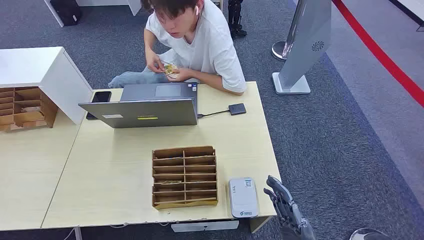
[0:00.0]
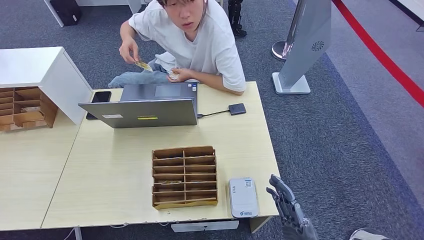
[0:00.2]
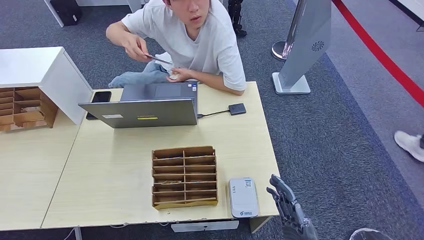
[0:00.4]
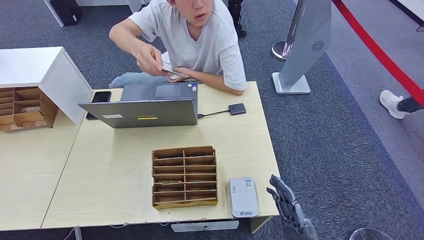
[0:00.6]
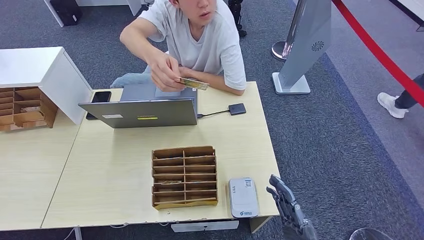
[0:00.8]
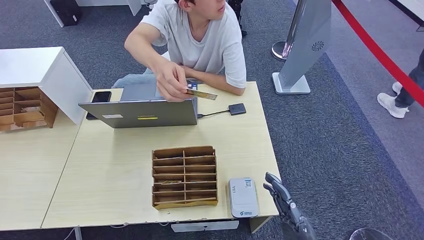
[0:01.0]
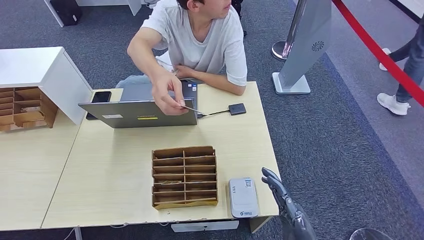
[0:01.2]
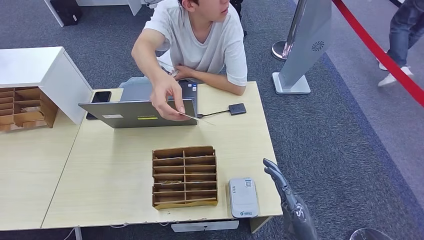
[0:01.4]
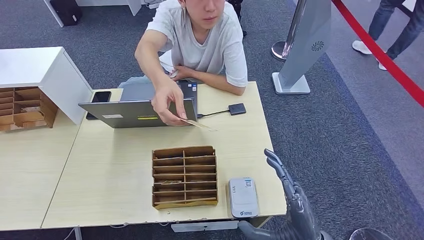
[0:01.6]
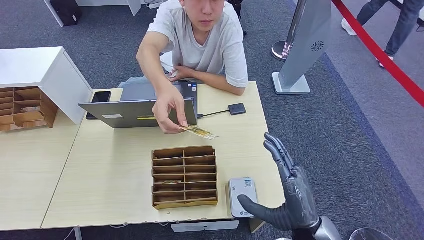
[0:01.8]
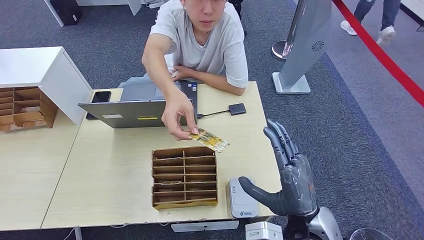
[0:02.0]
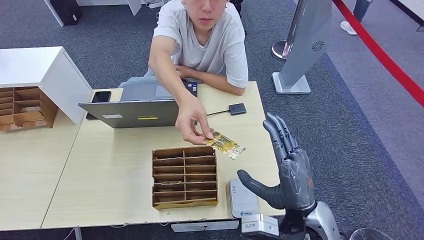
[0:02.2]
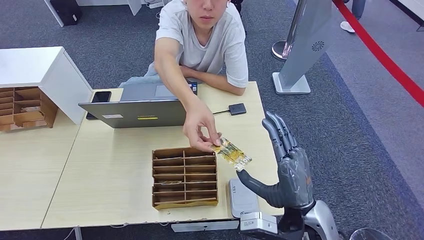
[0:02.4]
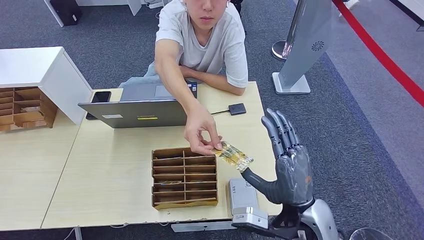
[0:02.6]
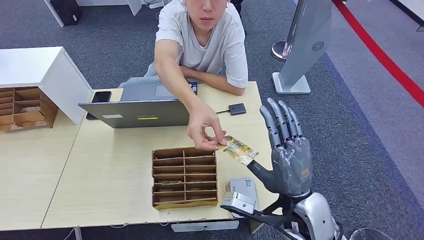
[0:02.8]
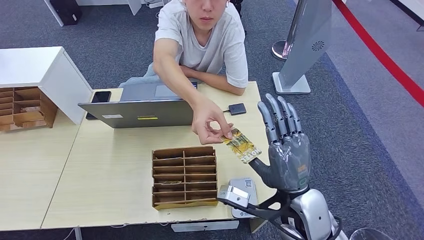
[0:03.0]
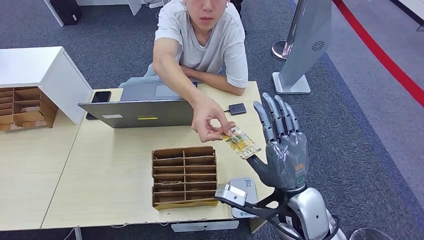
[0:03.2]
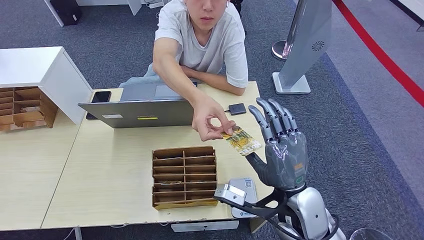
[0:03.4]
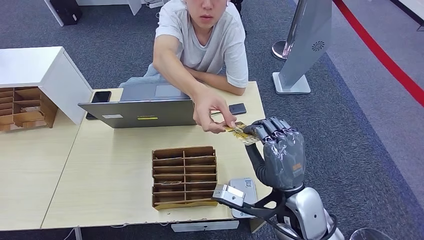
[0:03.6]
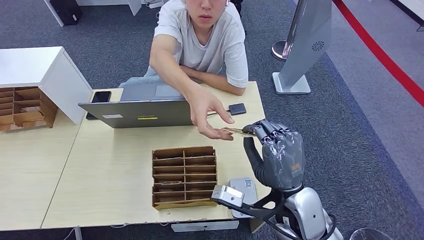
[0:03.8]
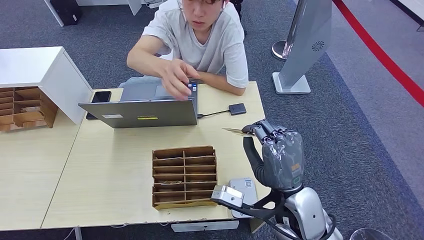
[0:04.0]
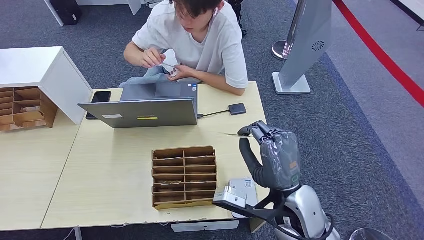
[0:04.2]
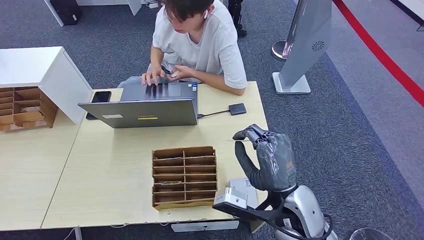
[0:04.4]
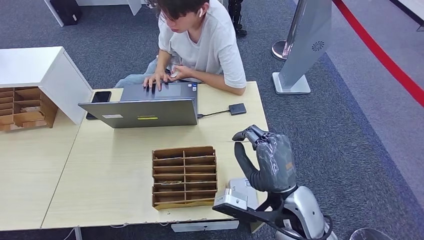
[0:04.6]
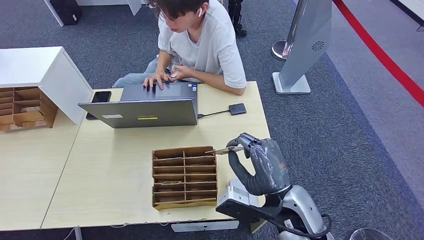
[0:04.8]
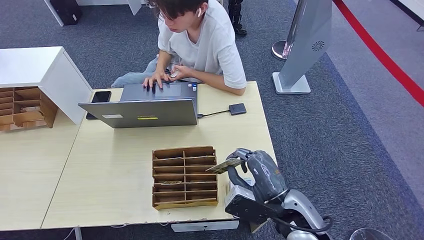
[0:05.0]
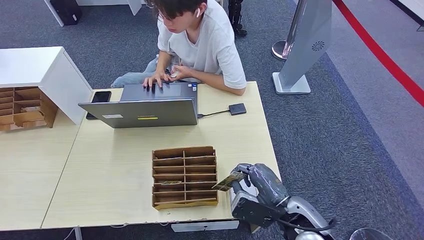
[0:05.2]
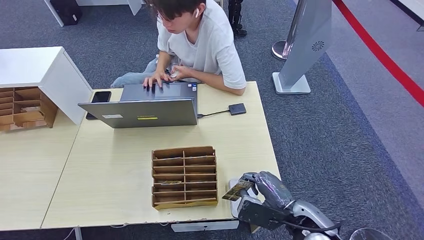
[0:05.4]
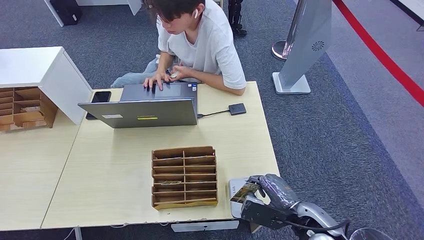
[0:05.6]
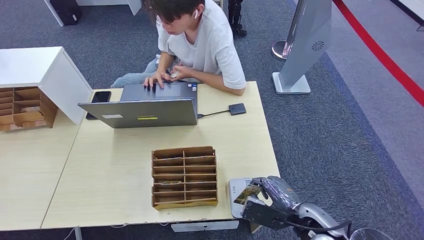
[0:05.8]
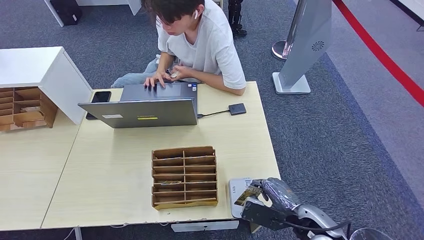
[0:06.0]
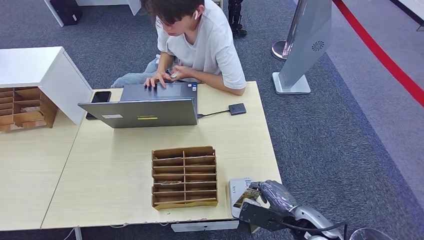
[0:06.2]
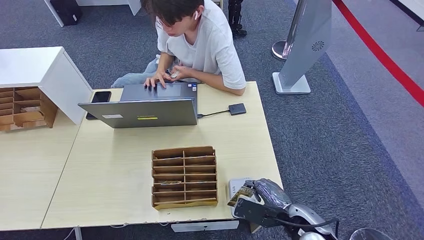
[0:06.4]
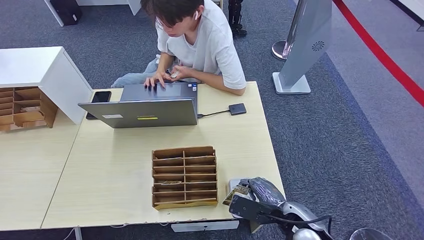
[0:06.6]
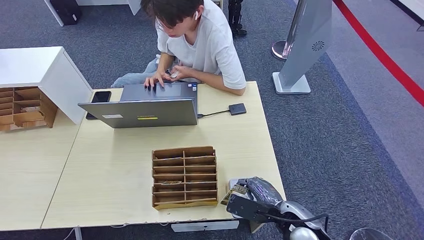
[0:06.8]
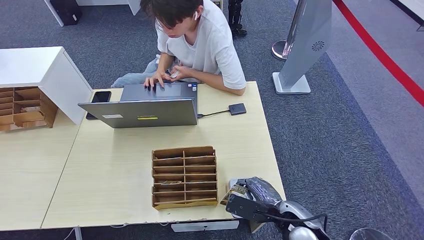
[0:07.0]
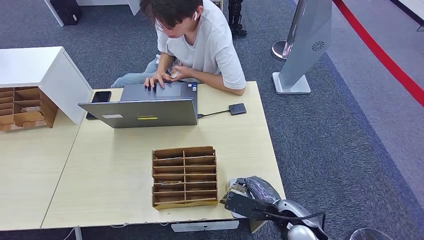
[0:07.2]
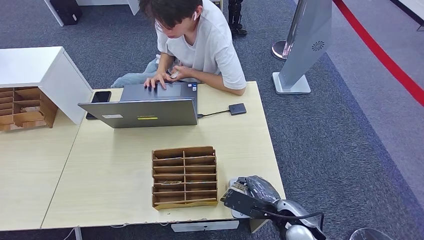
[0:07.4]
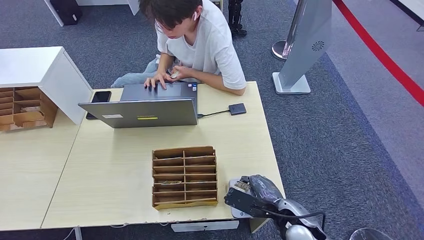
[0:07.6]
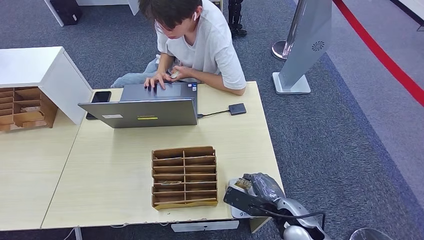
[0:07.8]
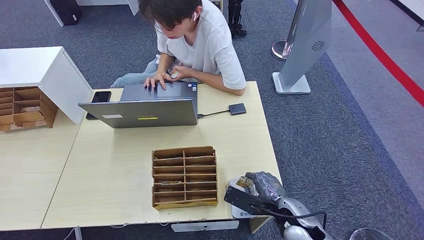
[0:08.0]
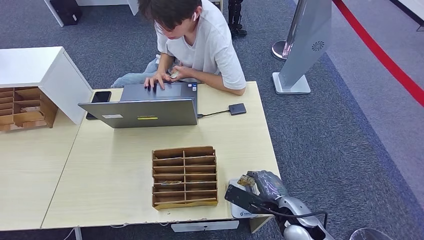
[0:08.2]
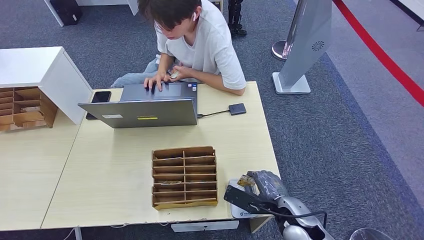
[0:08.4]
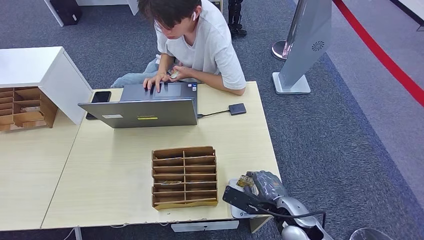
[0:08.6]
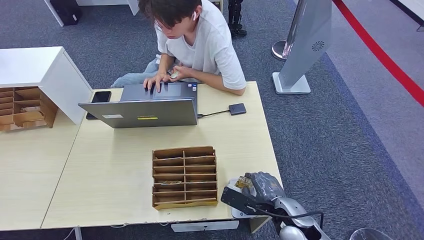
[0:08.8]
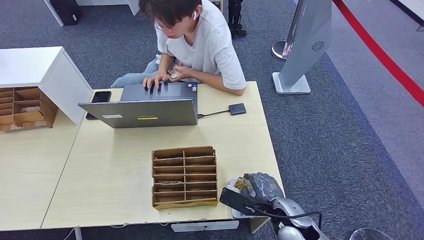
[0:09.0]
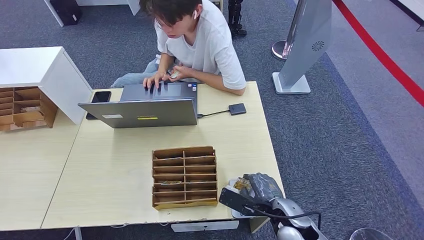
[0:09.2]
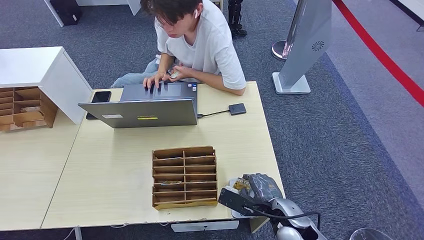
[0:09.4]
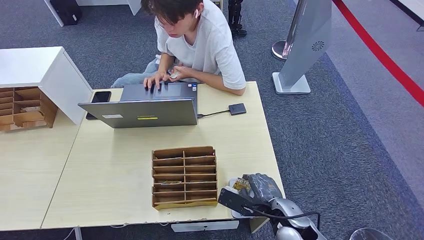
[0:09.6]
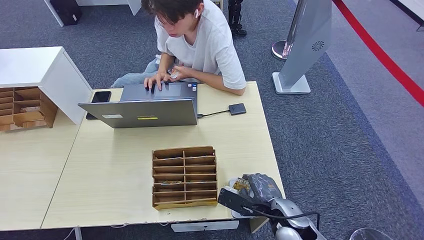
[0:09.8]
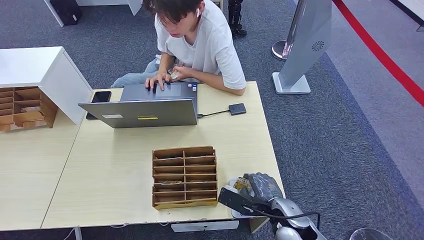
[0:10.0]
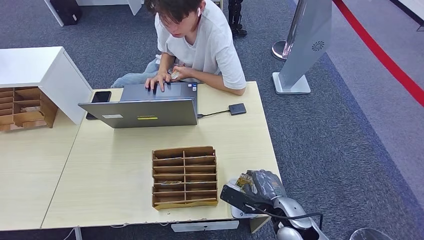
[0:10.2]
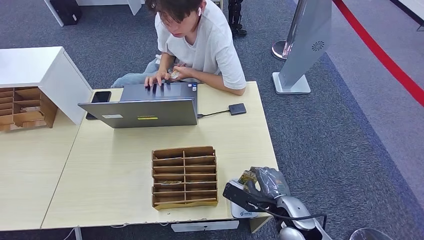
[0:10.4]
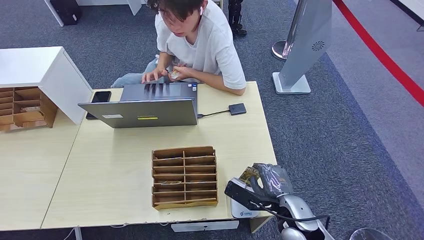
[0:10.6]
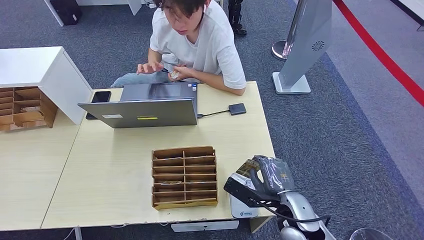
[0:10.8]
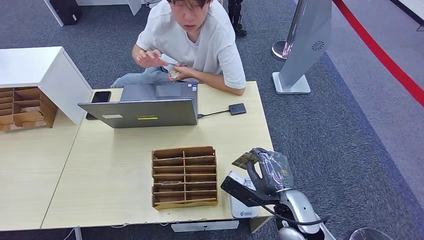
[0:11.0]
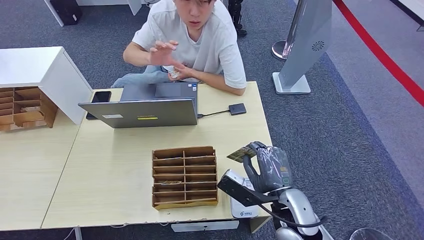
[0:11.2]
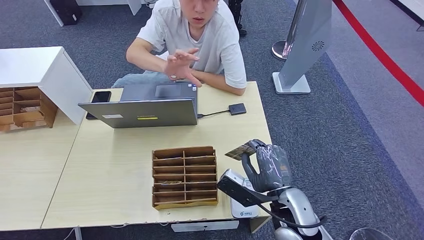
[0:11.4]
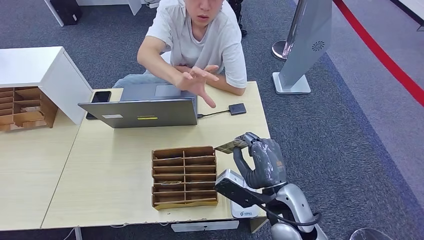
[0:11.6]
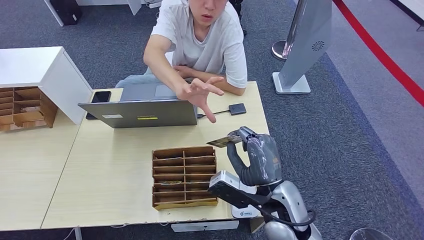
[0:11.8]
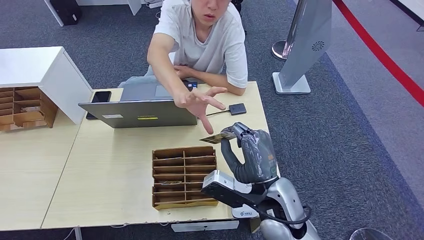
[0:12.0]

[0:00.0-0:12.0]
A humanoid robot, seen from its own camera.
Step, 0:00.0 to 0:05.6: Take the ID card from the person's hand.
Step, 0:05.8 to 0:09.0: Place the ID card on the card reader.
0:01.6 to 0:03.0: The right hand is displaced forward by approximately 10 cm.
0:03.0 to 0:04.4: The hands stay close to where they were, moving slightly.
0:04.4 to 0:06.0: The right hand is displaced downward and to the right by roughly 15 cm.
0:06.0 to 0:09.0: The hands stay close to where they were, moving slightly.
0:09.0 to 0:10.4: The hands move only a little.
0:10.4 to 0:12.0: The right hand goes approximately 15 cm upward and to the left.

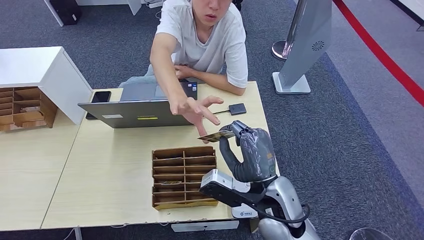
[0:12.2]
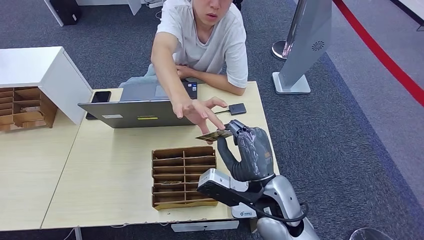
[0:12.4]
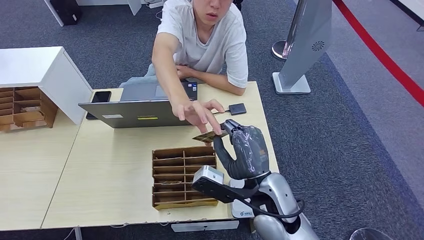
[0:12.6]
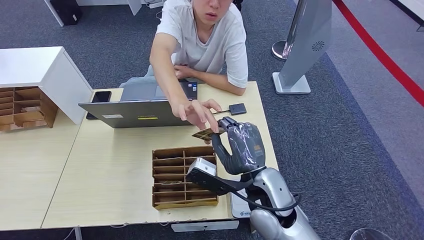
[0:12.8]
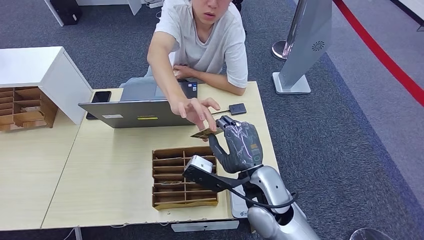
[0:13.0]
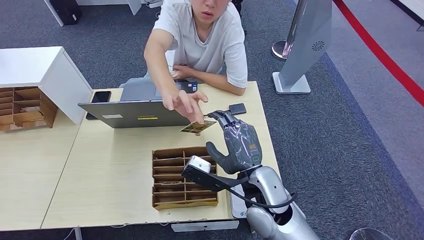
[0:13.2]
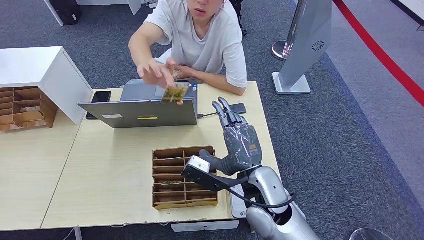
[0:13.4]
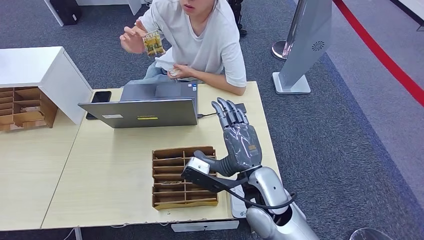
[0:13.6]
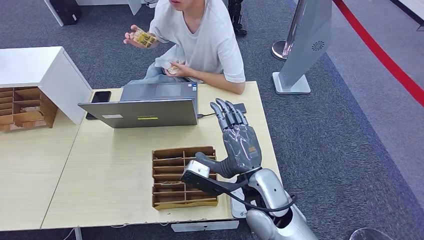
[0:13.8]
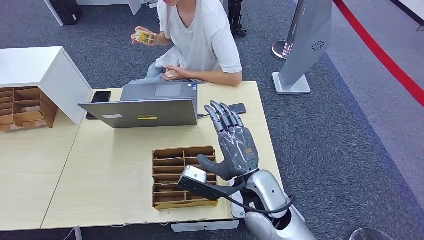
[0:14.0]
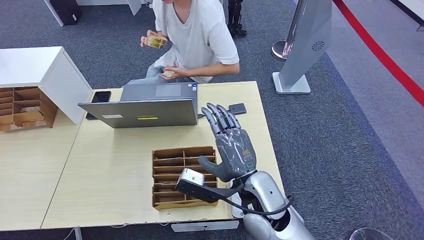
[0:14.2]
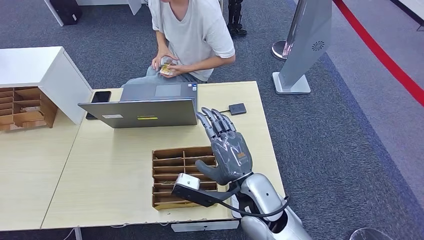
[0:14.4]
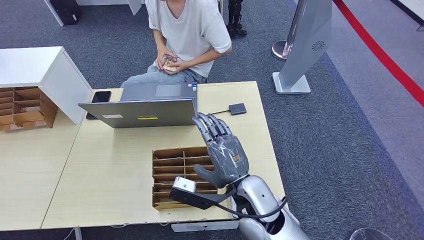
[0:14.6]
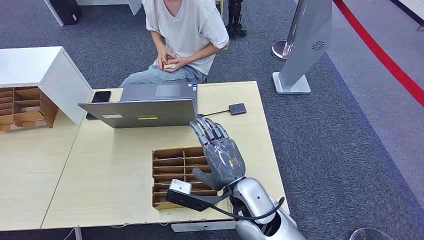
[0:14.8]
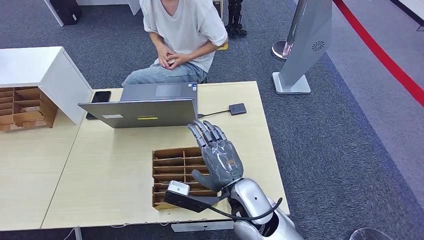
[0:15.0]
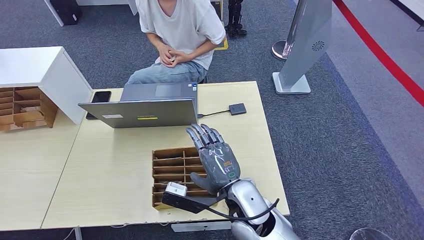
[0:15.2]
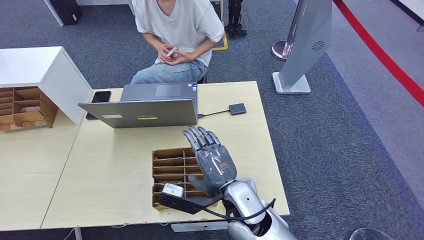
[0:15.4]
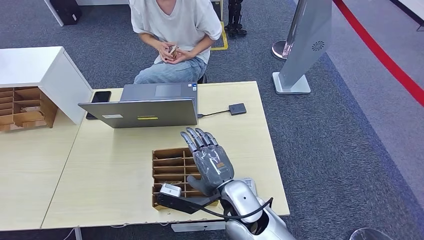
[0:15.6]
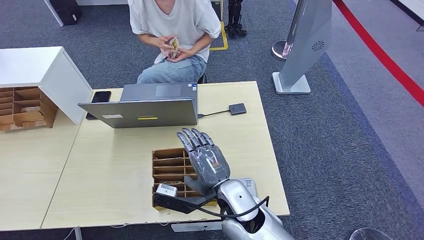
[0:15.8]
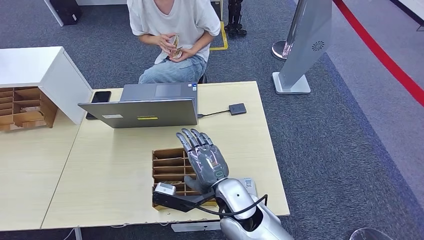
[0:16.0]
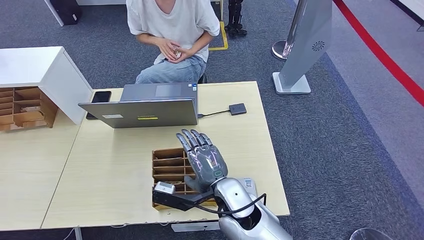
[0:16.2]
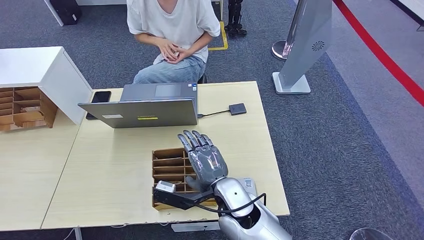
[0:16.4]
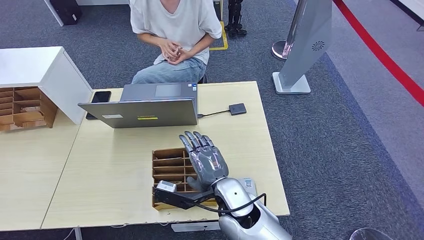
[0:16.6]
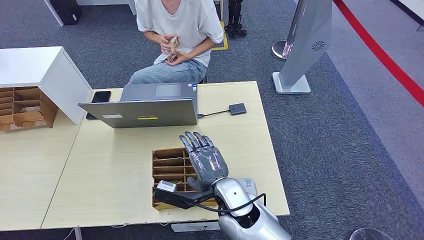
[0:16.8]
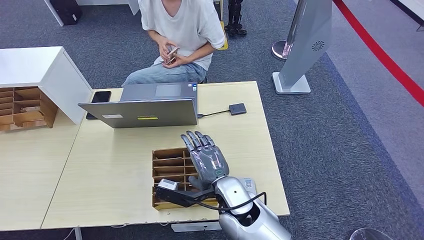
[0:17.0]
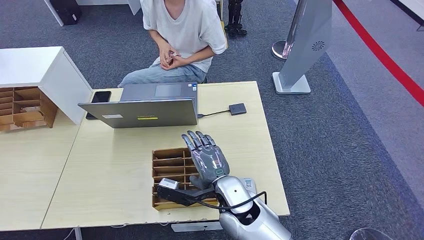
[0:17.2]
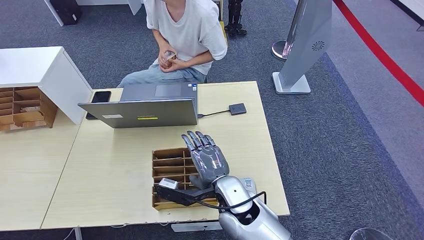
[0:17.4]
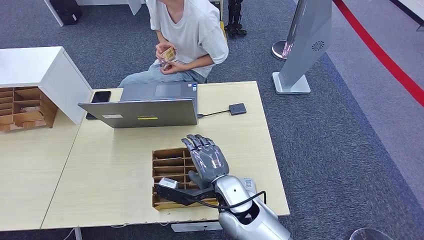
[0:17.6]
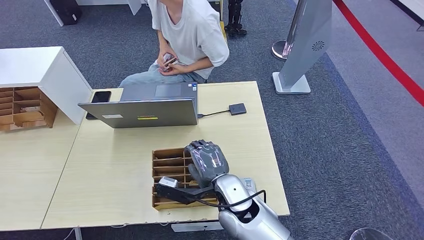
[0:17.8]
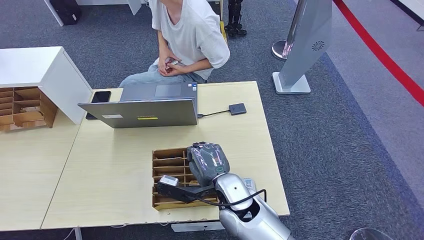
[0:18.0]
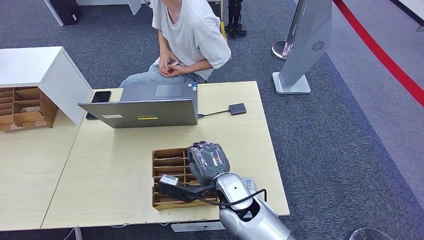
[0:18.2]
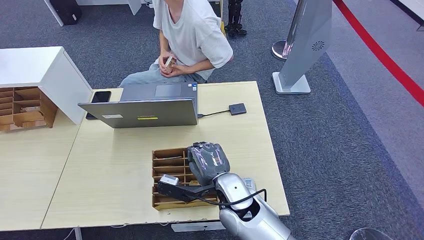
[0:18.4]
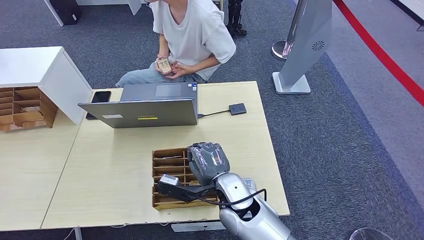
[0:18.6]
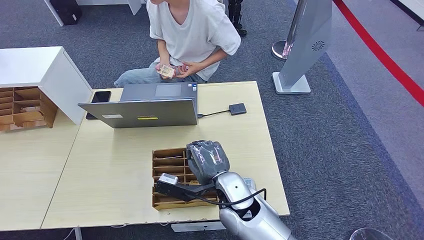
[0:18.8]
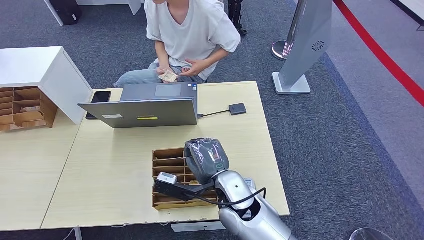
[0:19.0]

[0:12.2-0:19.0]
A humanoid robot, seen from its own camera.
0:12.2 to 0:13.6: The hands move only a little.
0:13.6 to 0:15.0: There are only small adjustments of the hands.
0:15.0 to 0:19.0: The hands stay close to where they were, moving slightly.
